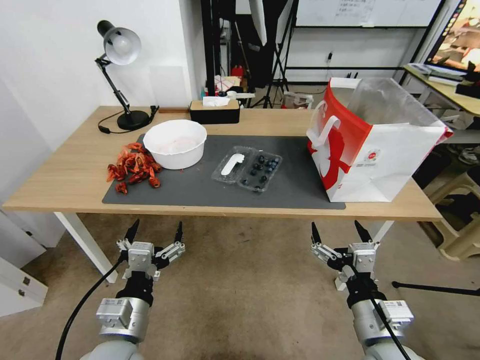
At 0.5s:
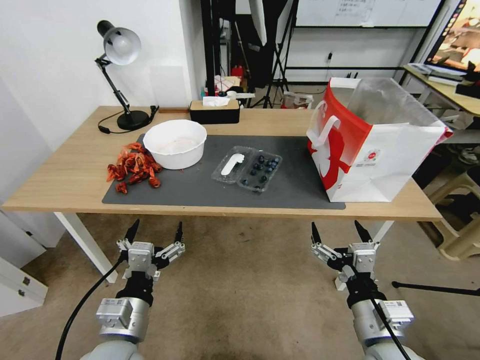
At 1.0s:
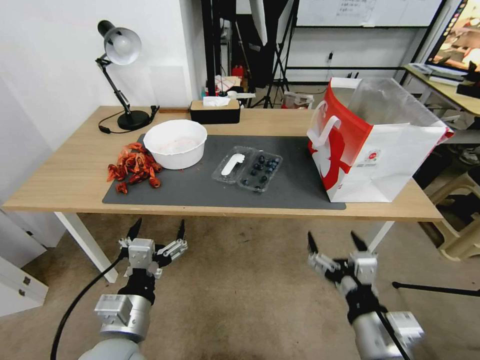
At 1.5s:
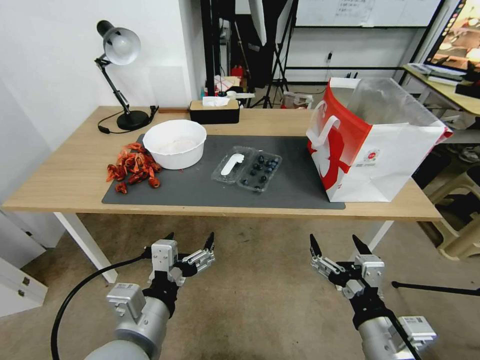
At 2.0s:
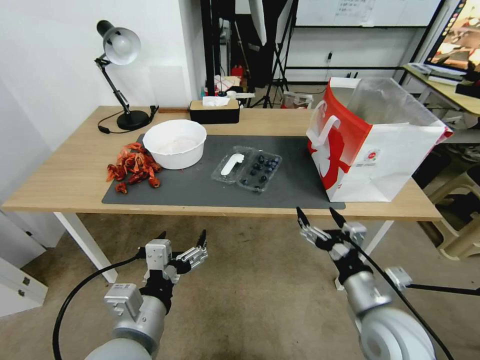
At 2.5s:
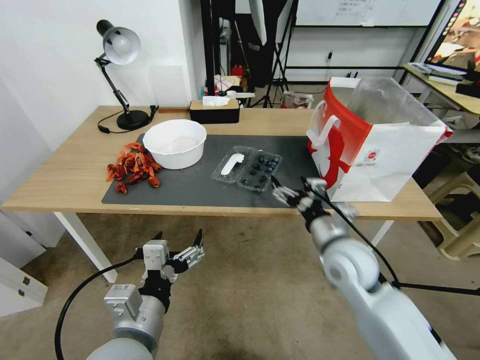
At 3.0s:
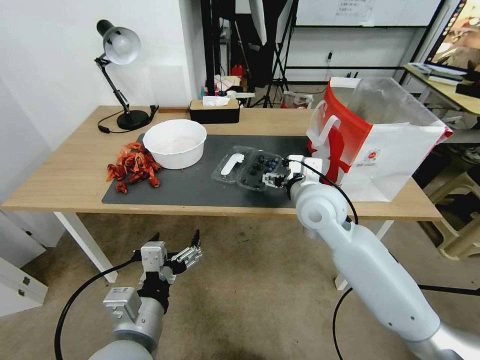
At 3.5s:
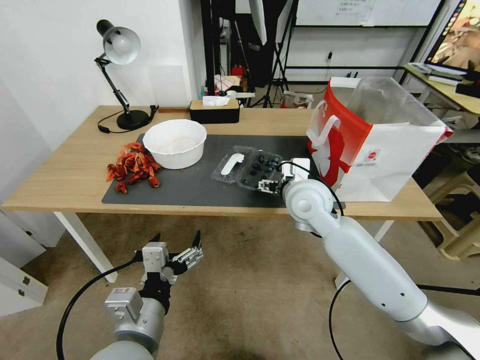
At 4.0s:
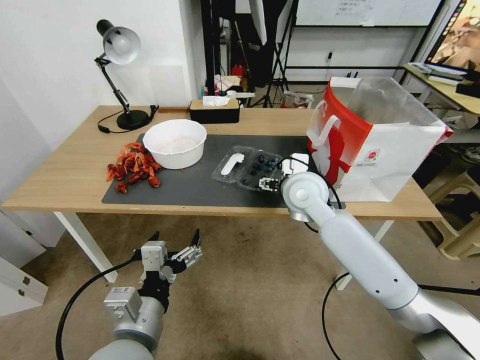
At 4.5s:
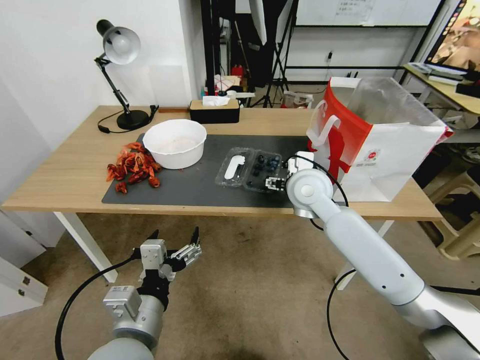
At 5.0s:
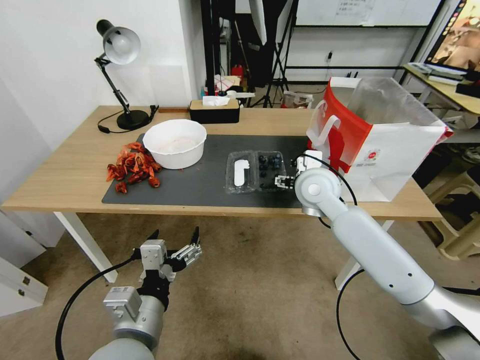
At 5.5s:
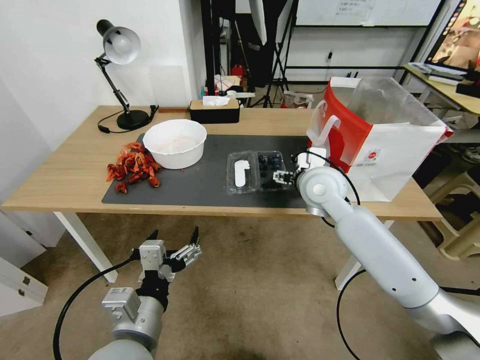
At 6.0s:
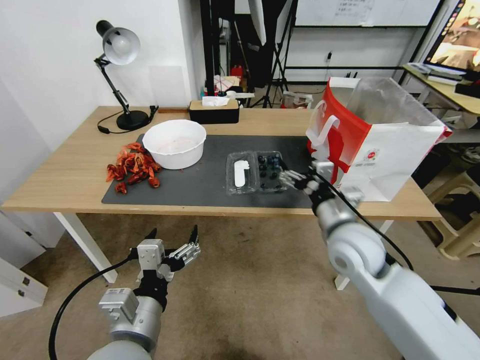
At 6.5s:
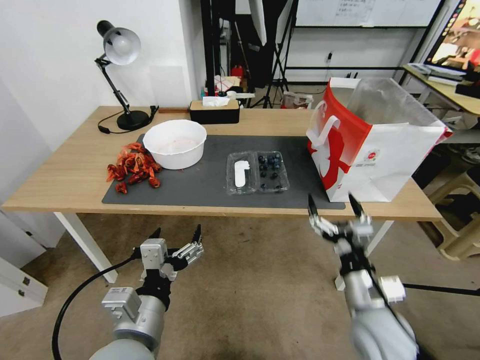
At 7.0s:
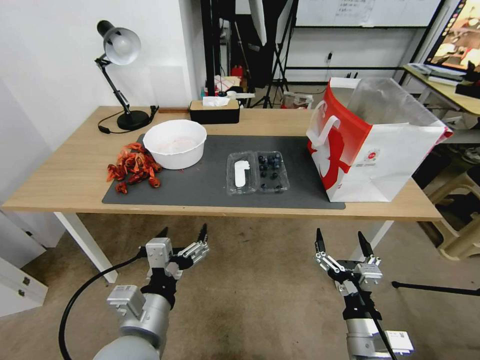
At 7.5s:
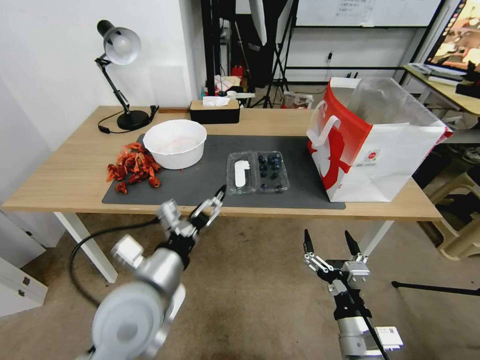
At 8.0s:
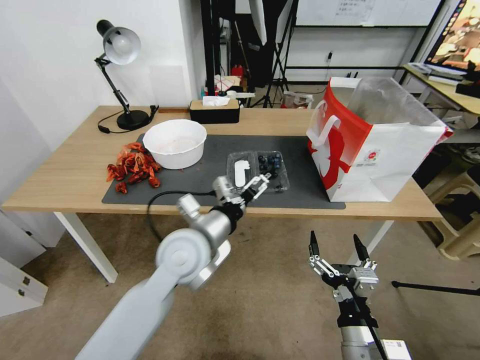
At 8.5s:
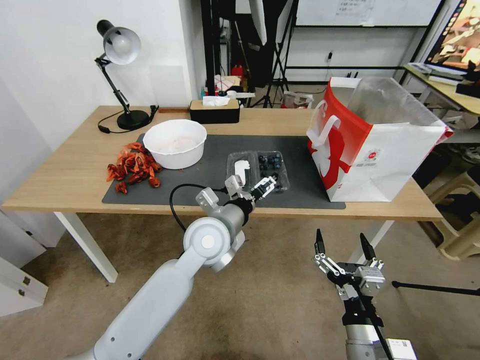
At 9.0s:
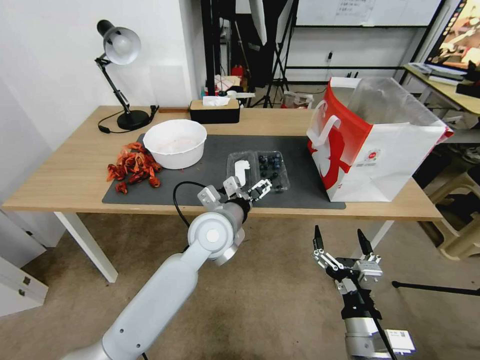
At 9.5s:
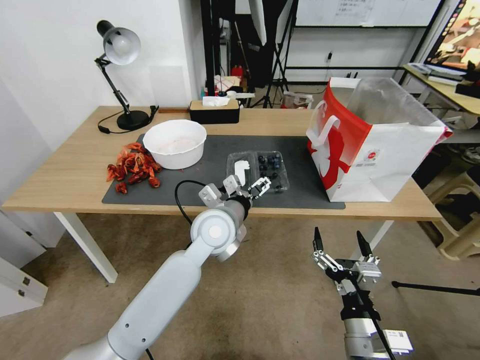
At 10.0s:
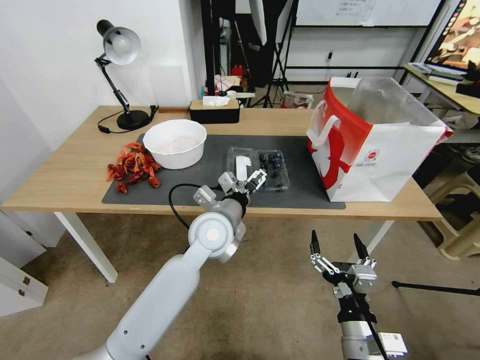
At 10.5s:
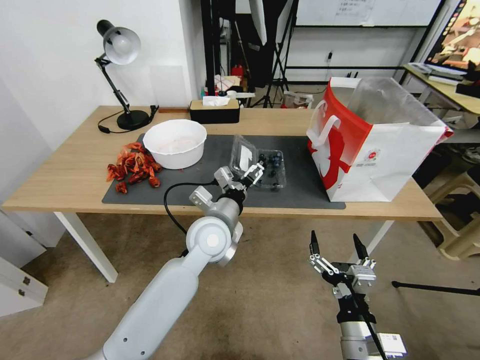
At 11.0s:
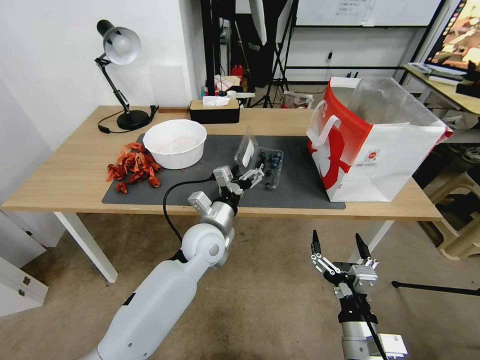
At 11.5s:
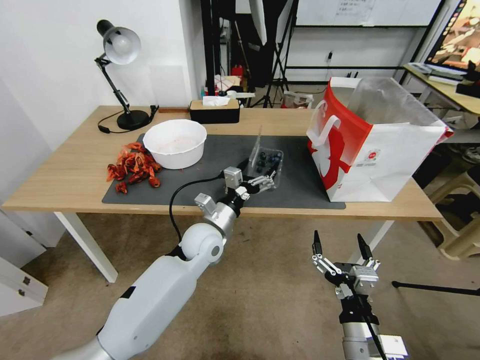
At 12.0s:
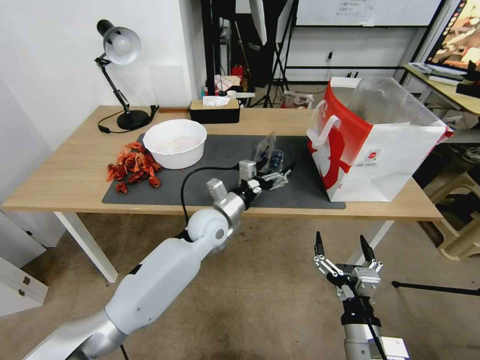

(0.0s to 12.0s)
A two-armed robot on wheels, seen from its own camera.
Task of the whole recording: Close the takeout container lid, then place the container into the takeout bag.
2.0s - 4.0s: The right gripper travels forward, to the left and upward by about 30 cm.
4.0s - 6.0s: The right gripper heads backward and to the right, covering about 10 cm.
6.0s - 8.0s: The left gripper heads forward and to the right, covering about 20 cm, while the right gripper heads backward and downward, covering roughly 30 cm.
8.0s - 10.0s: The left gripper heads forward, covering approximately 5 cm.
10.0s - 12.0s: The left gripper travels downward by roughly 5 cm.

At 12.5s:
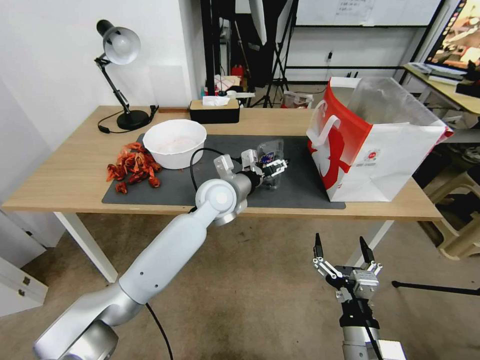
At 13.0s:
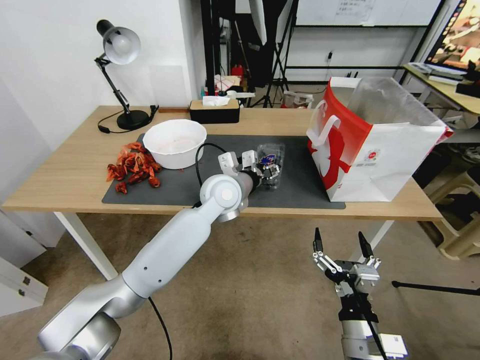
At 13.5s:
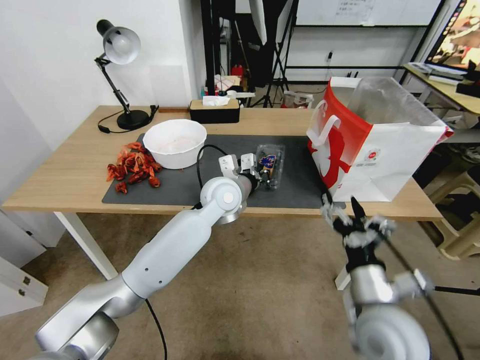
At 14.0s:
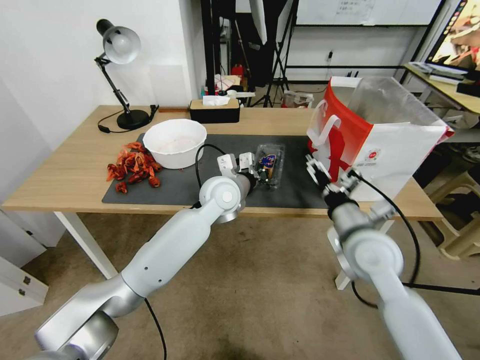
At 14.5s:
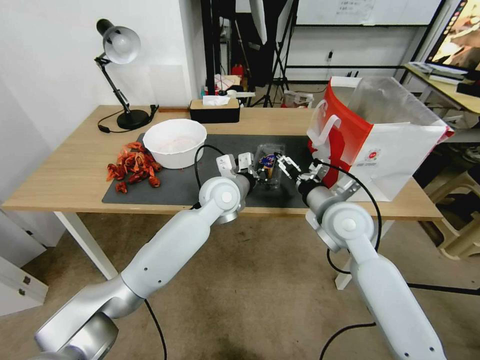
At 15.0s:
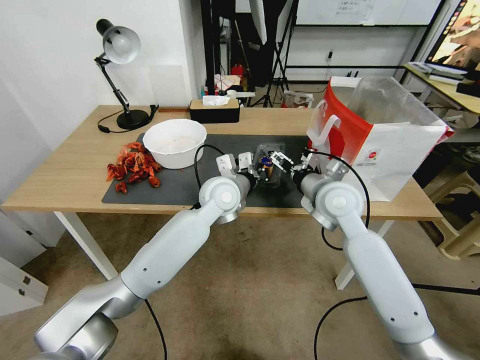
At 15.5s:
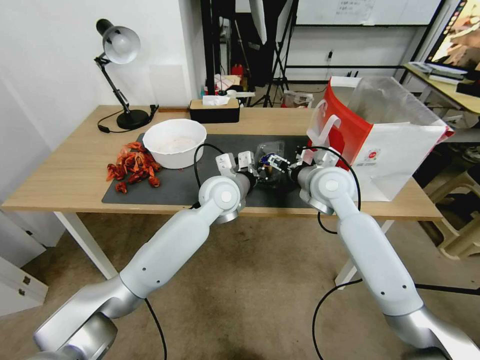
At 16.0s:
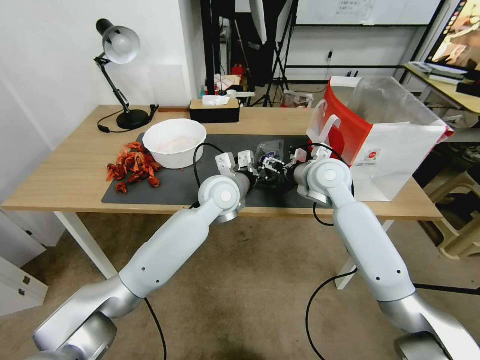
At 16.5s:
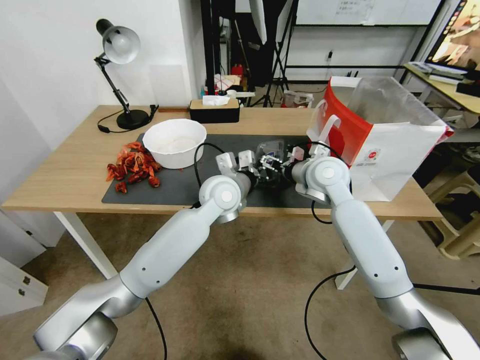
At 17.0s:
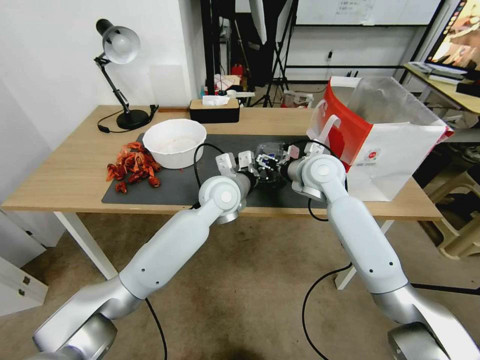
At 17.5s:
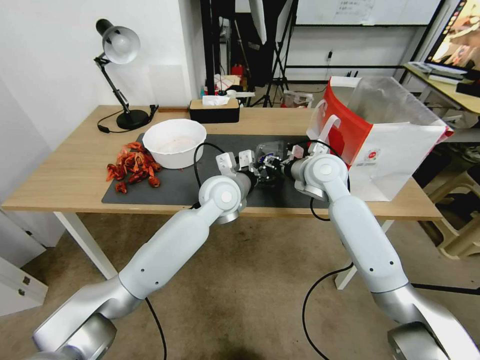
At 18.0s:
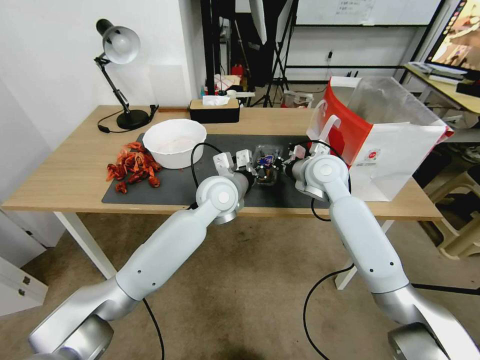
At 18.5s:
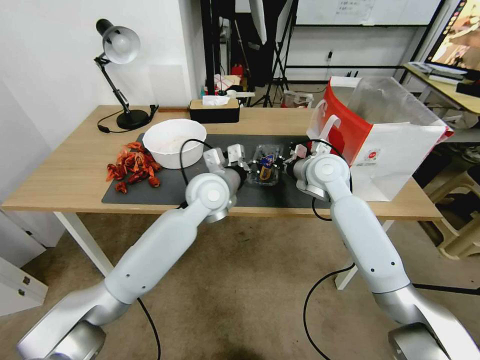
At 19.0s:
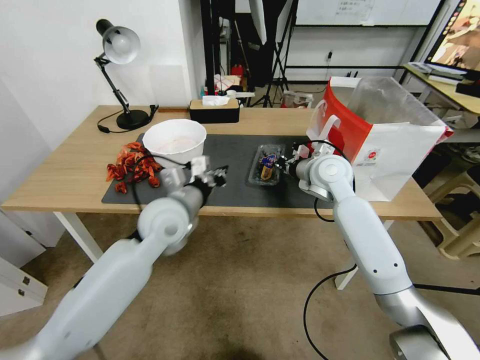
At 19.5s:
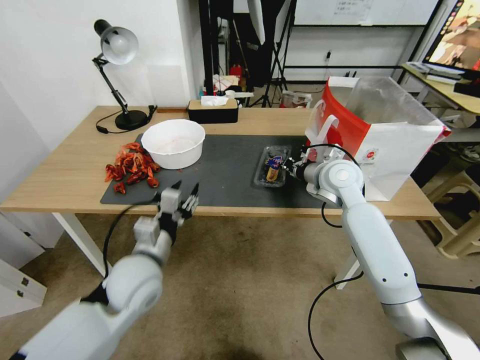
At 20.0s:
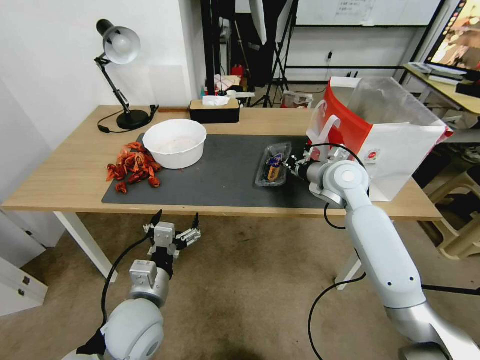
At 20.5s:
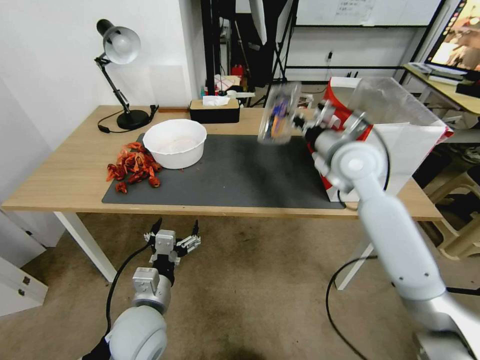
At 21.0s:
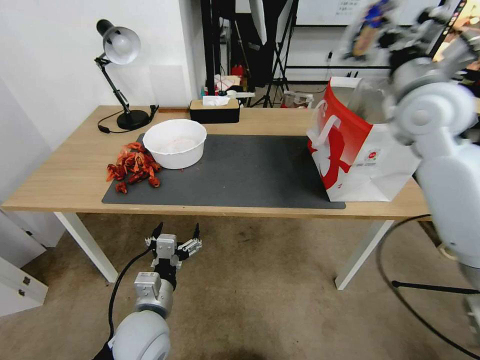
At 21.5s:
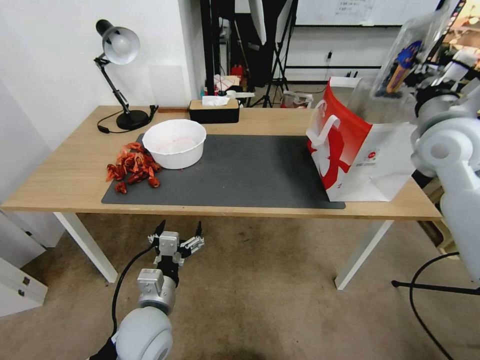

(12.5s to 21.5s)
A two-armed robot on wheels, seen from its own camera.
Task of the whole recording: Close the takeout container lid, then place the container into the takeout bag.
12.5s - 14.5s: The right gripper moves forward and upward, some 30 cm. Meanwhile the left gripper closes up.
14.5s - 17.0s: The right gripper goes roughly 10 cm forward.
17.0s - 19.5s: The right gripper closes up. The left gripper goes some 25 cm backward and to the left, and opens up.
19.5s - 21.5s: The left gripper goes about 10 cm backward and downward, and opens up; the right gripper shifts some 20 cm upward and to the right.

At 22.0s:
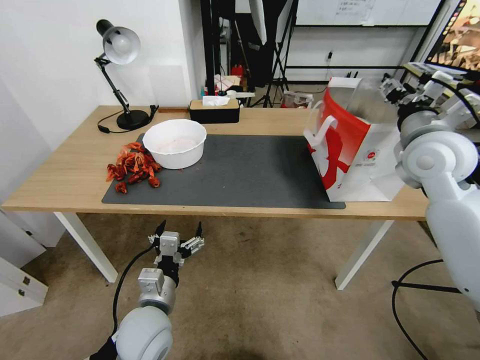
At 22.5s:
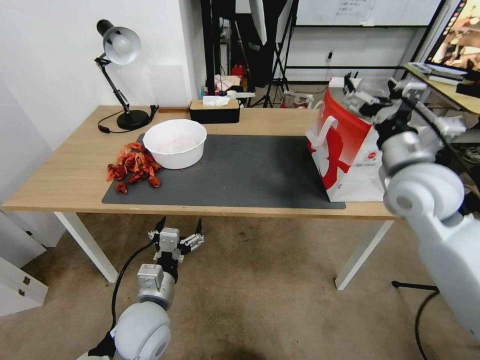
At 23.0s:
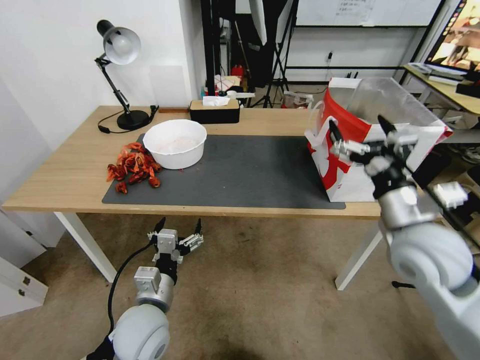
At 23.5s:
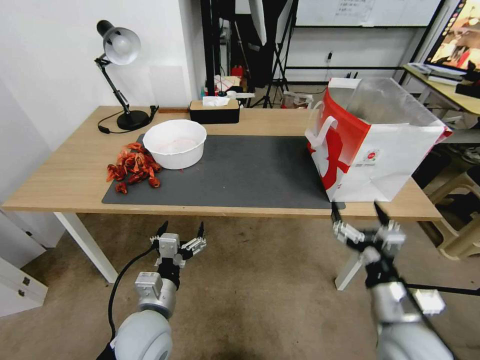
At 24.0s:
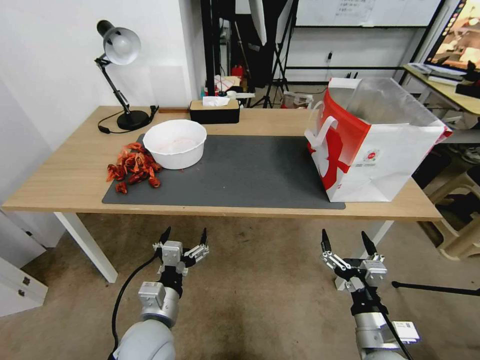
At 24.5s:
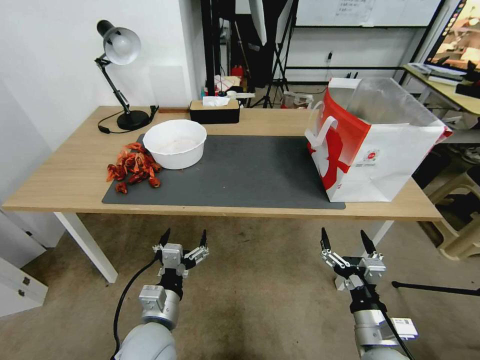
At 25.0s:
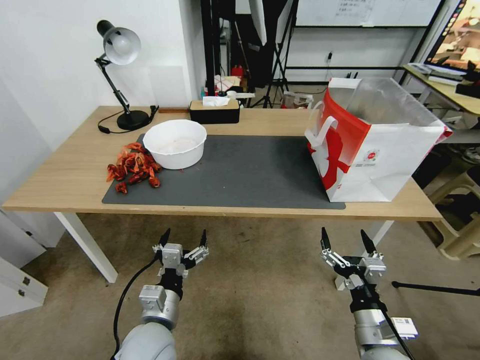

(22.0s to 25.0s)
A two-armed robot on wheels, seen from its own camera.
Task of the whole recording: Close the takeout container lid, then place the container into the takeout bag.
22.0s - 23.5s: The right gripper is displaced backward and downward by roughly 35 cm, and opens up.
23.5s - 25.0s: The right gripper heads downward, covering approximately 5 cm.

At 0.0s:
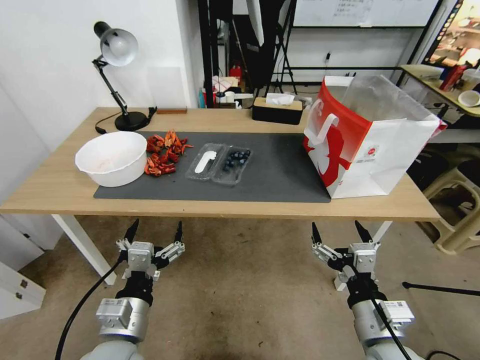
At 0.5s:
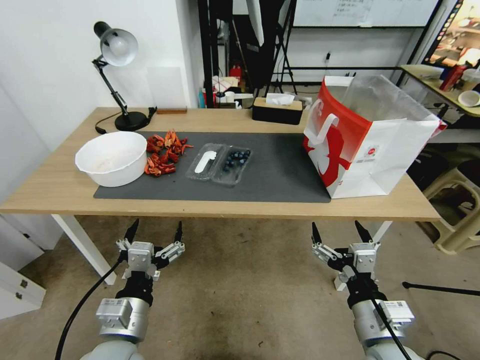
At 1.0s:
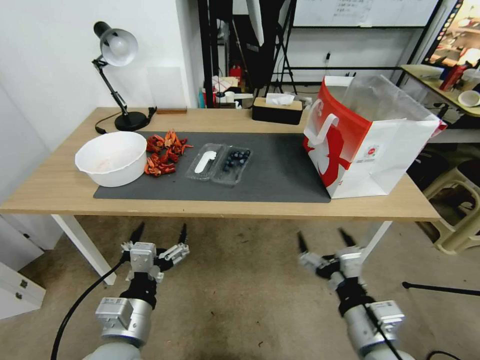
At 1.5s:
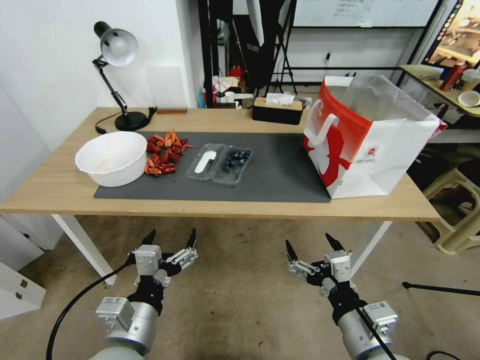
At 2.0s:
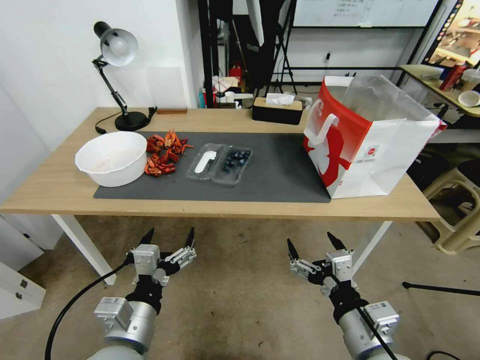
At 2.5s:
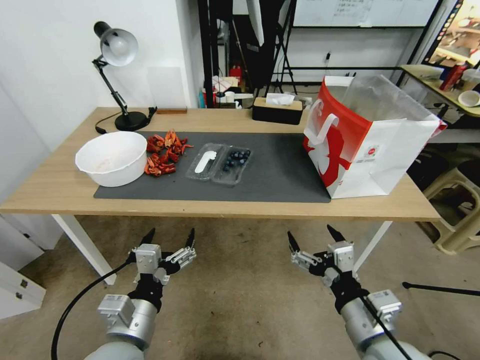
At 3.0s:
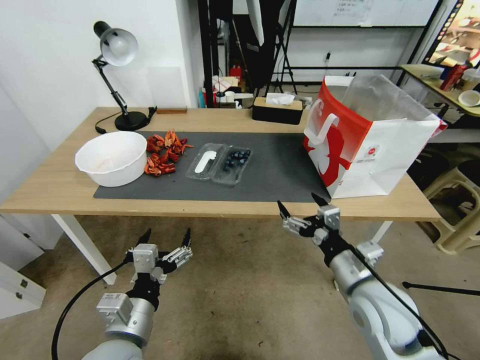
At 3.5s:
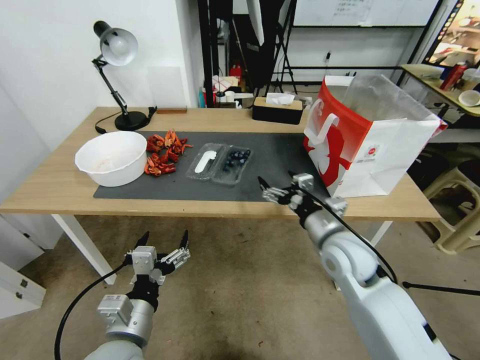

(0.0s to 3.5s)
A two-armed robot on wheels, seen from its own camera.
Task of the whole recording: Close the takeout container lid, then place the container into the takeout bag.
2.0s - 3.5s: The right gripper is displaced forward by approximately 20 cm.
